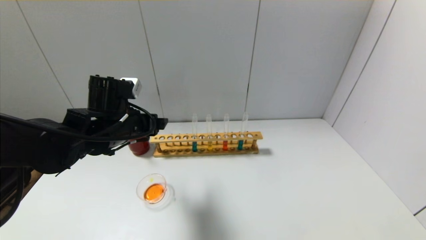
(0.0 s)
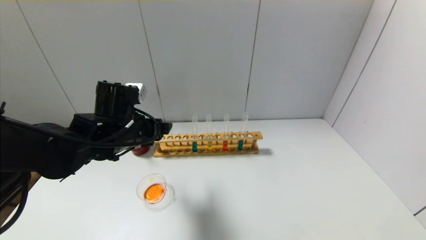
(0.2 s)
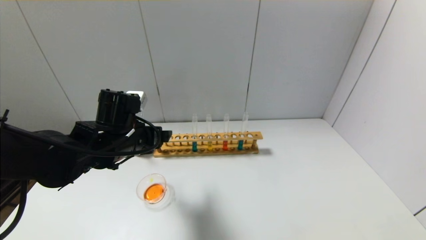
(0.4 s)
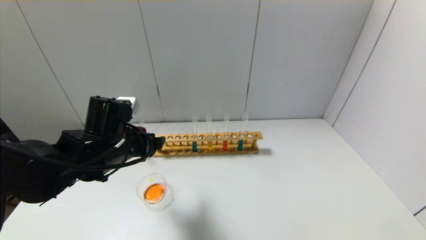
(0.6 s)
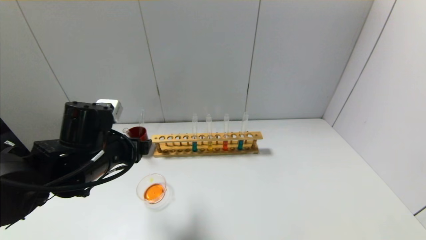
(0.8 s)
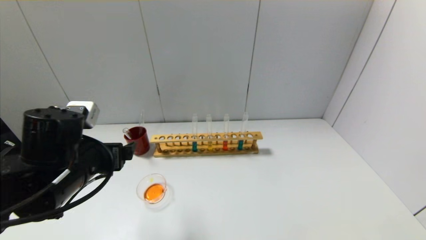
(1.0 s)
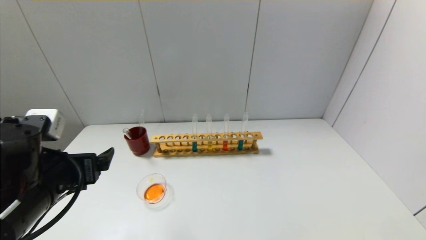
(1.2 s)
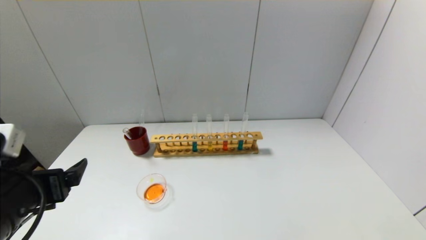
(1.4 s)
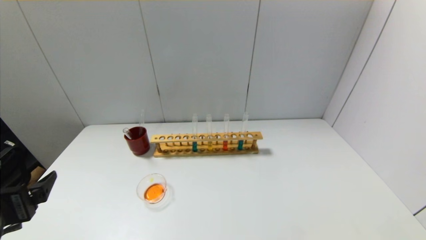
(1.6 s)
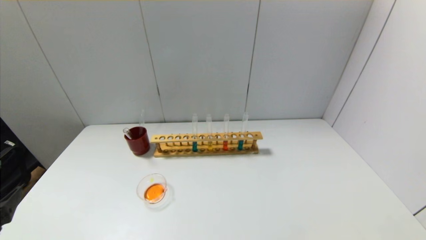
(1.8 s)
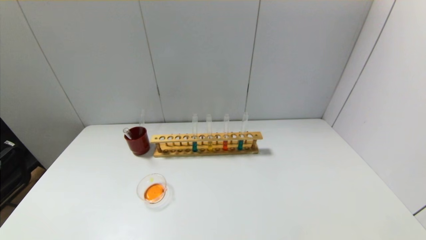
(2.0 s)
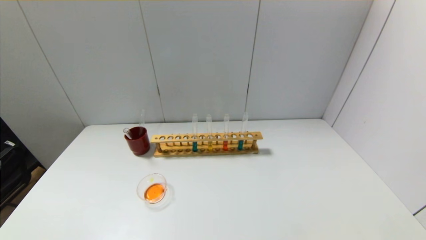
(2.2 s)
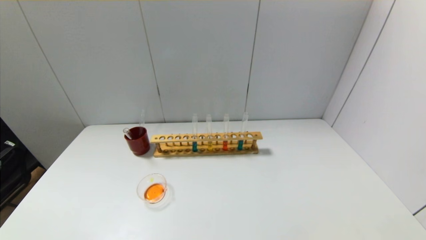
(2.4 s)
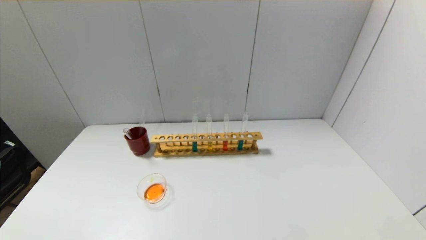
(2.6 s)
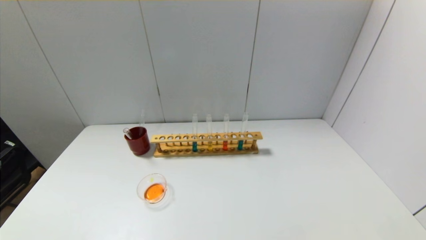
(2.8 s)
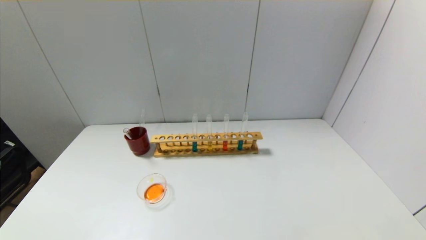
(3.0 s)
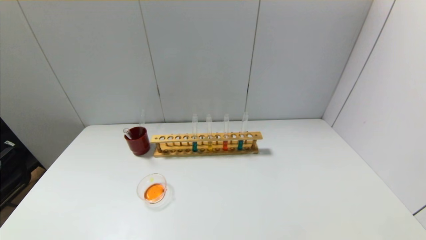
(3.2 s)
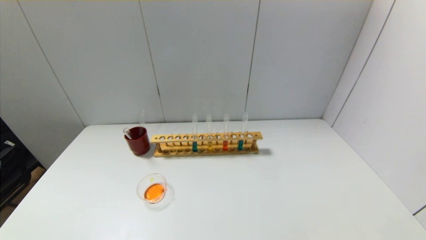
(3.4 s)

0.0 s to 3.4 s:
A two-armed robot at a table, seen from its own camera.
0.0 to 1.6 s: The left gripper moves backward and to the left, roughly 25 cm.
1.6 to 3.4 s: The left gripper travels backward and downward by approximately 15 cm.
